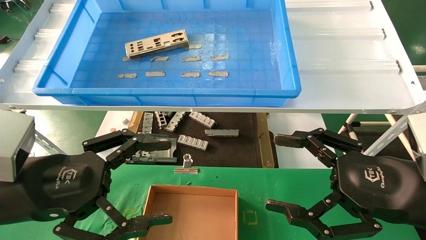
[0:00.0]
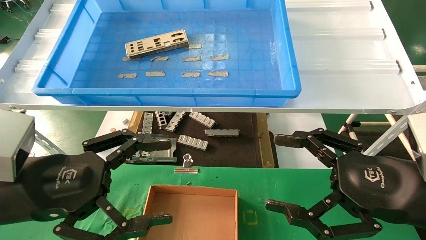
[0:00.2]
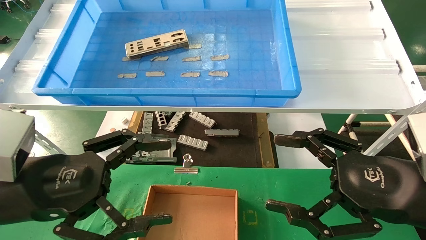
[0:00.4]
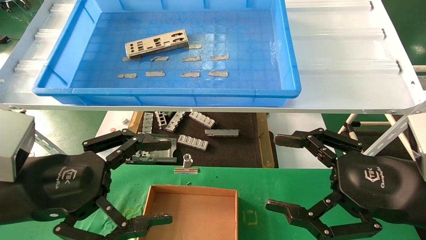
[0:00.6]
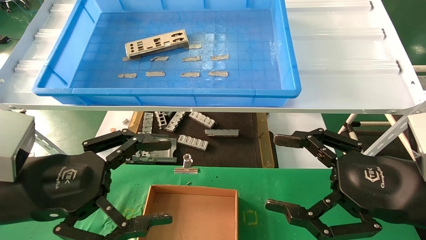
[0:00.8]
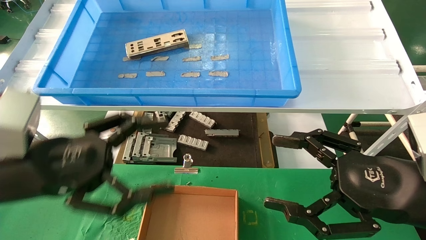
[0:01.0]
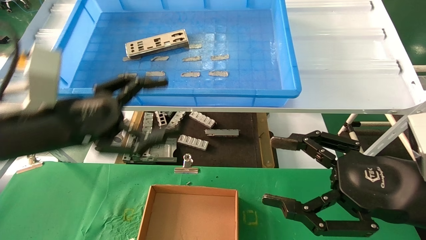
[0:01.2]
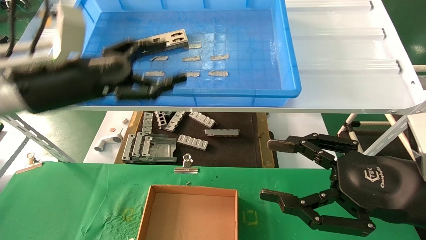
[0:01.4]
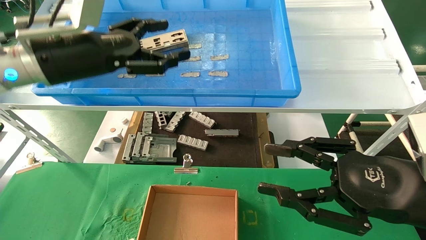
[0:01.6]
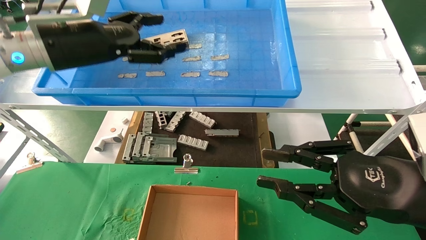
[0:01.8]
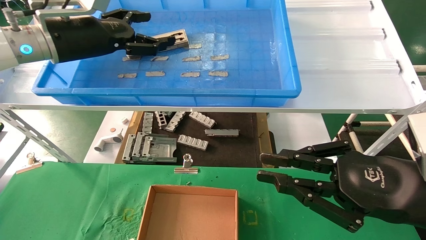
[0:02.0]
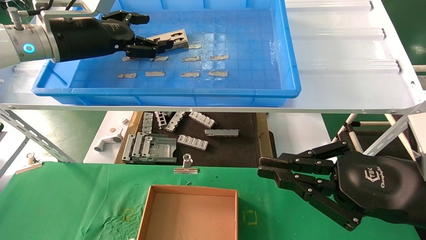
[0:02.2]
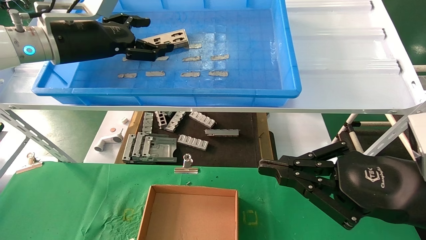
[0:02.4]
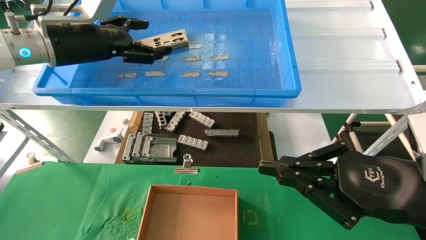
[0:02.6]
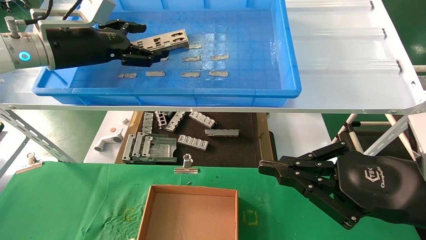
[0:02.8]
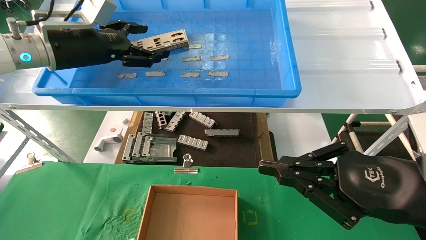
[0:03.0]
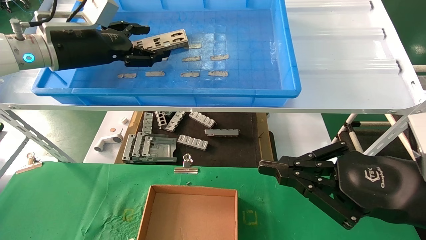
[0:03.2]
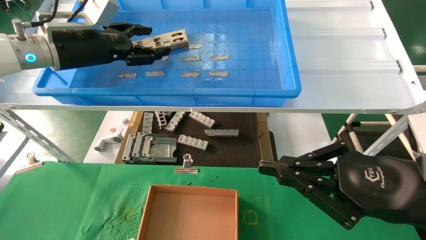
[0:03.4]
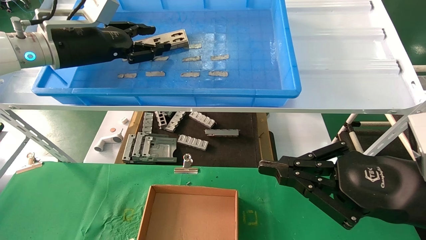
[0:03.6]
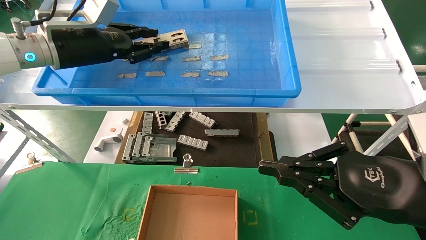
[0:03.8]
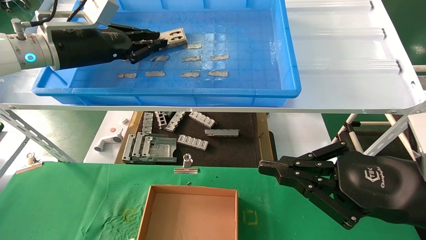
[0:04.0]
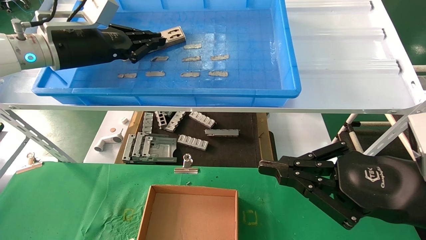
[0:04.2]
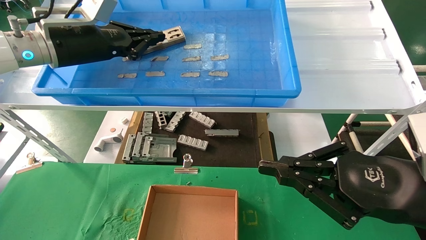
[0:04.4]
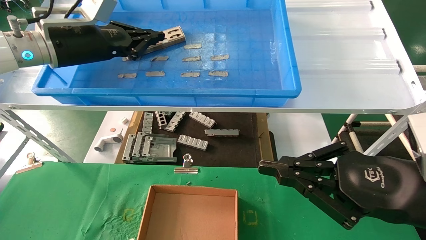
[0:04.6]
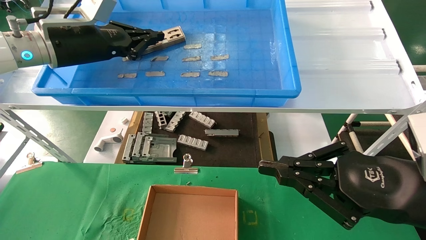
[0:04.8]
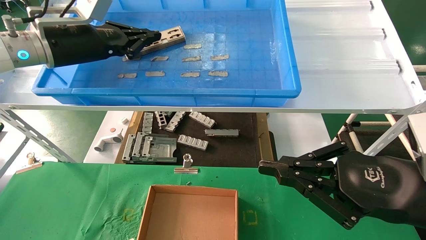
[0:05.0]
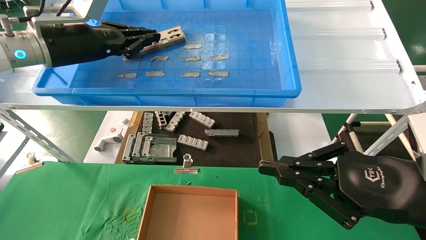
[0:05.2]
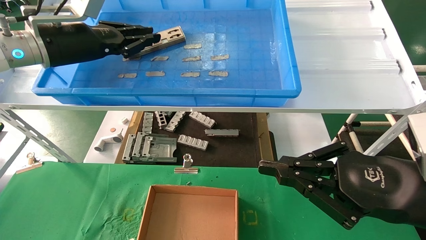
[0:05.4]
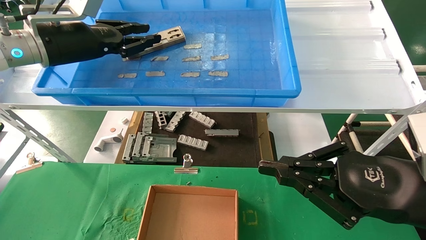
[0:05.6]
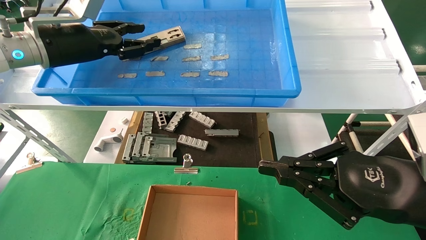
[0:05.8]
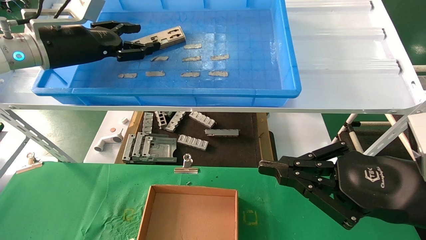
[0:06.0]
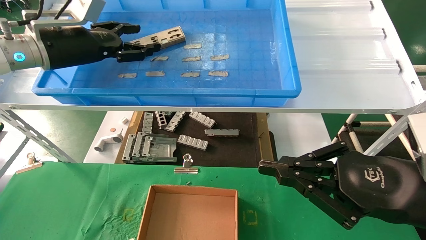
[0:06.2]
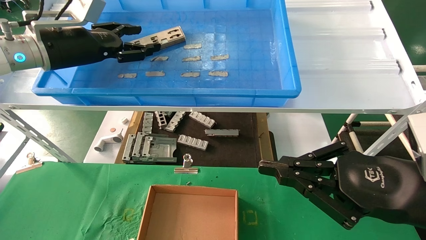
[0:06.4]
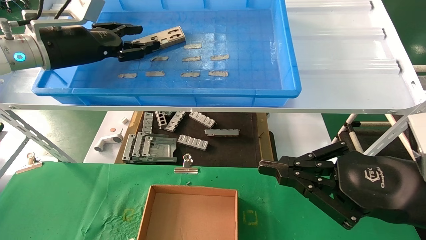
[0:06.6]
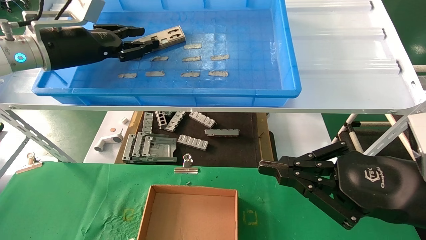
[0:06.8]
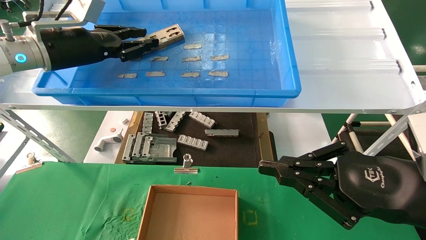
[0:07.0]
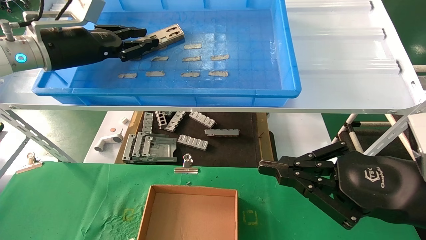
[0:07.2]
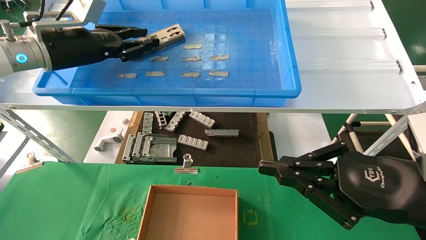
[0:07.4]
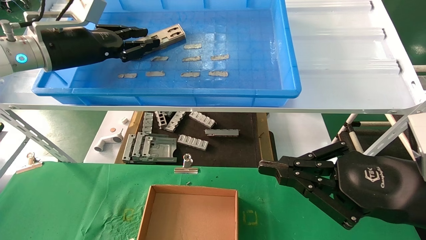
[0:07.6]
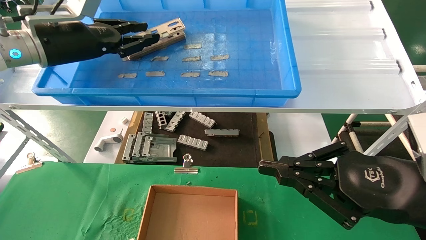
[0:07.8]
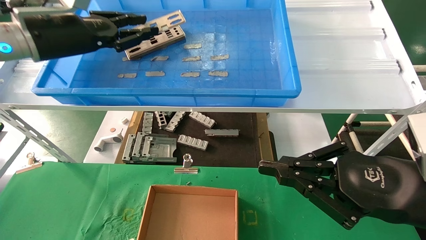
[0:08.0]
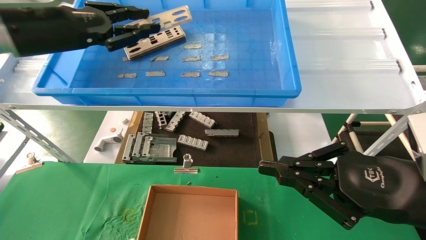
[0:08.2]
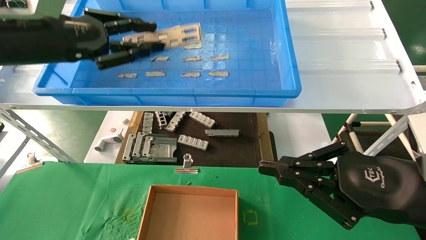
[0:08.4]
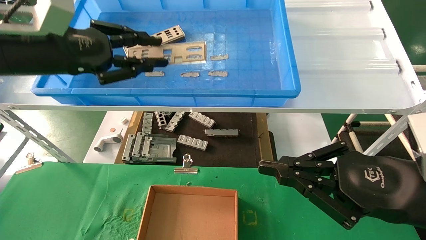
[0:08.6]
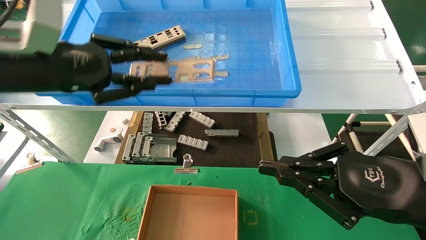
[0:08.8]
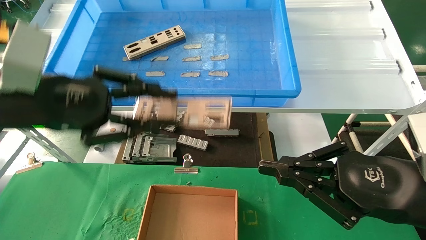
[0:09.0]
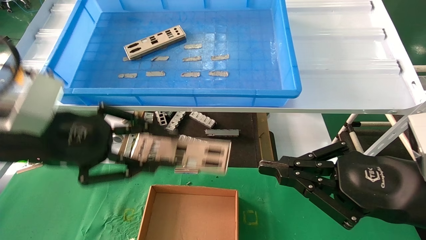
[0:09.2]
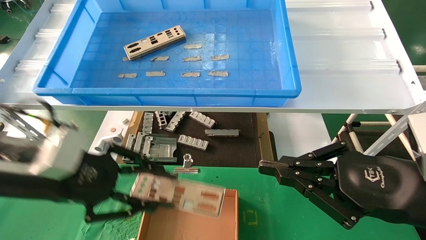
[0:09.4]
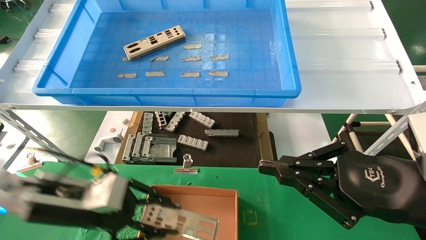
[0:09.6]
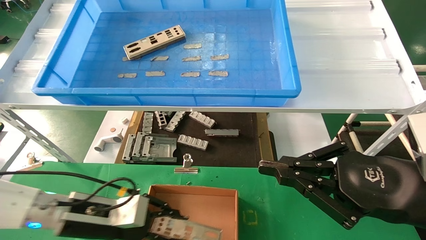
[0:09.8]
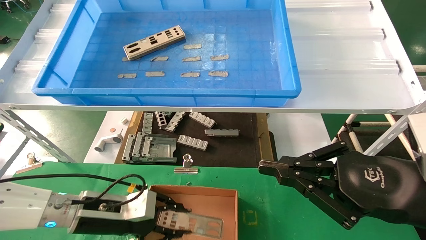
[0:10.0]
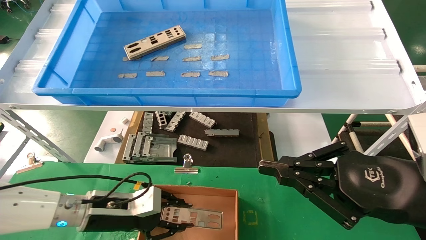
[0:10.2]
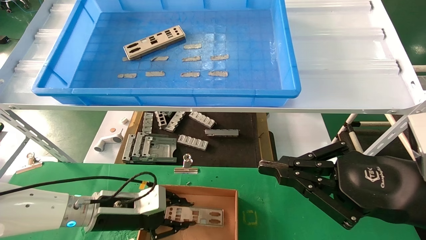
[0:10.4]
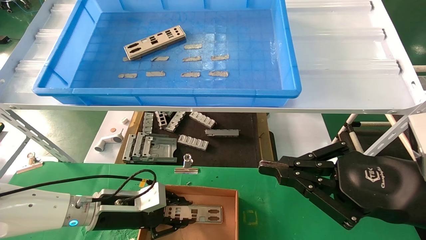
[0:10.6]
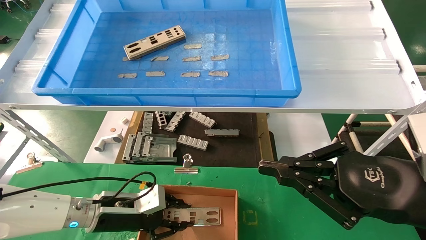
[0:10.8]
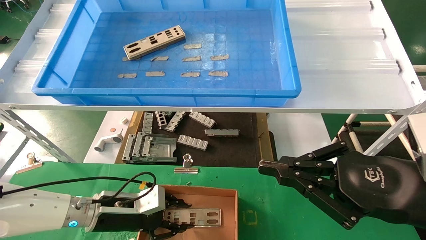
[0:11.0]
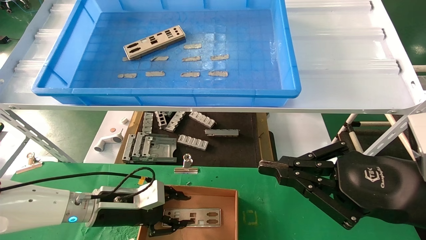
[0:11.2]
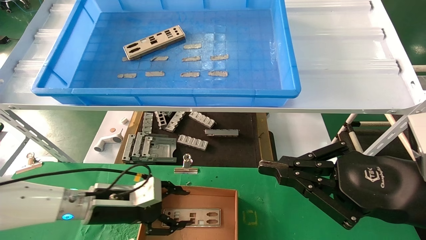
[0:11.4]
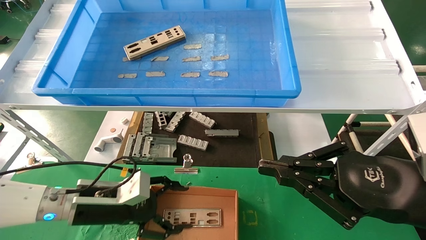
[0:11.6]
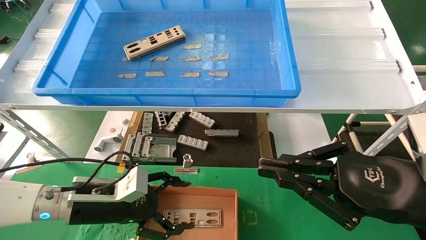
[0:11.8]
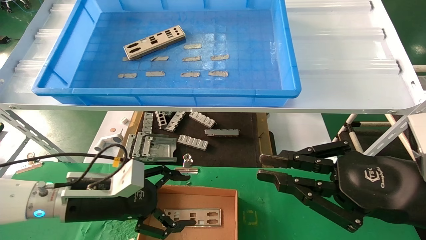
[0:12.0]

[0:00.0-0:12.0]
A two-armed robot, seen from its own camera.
Task of the whole recording: pick up the parts on the tray and put them in the cardboard box.
Step, 0:01.2 to 0:07.6: Pick up the IO bracket from the container box.
Step, 0:07.8 to 0:11.0: Place the IO bracket into the ingredient slot.
0:00.0 to 0:01.6: The right gripper closes its fingers. The left gripper heads forward and upward, covering some 20 cm.
0:01.6 to 0:03.0: The right gripper closes its fingers. Meanwhile the left gripper heads forward, covering about 5 cm.
0:03.0 to 0:04.4: The left gripper closes.
0:04.4 to 0:06.0: The left gripper opens.
0:06.0 to 0:07.6: Neither gripper changes place.
0:07.6 to 0:09.0: The left gripper shifts about 15 cm backward.
0:09.0 to 0:10.4: The left gripper moves downward, approximately 25 cm.
0:10.4 to 0:12.0: The left gripper goes about 5 cm upward, and opens up.

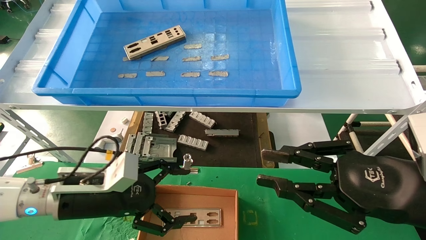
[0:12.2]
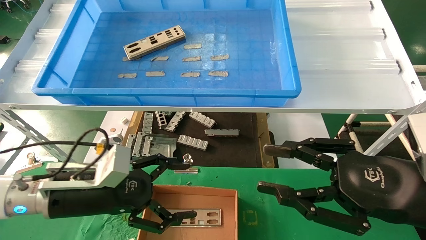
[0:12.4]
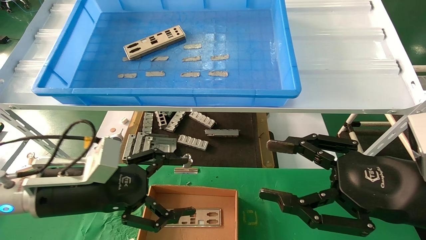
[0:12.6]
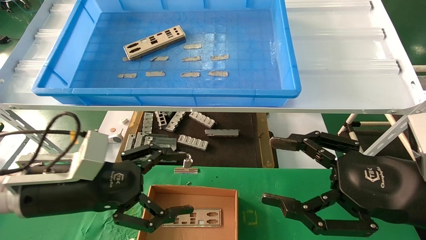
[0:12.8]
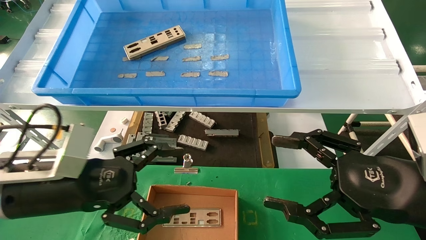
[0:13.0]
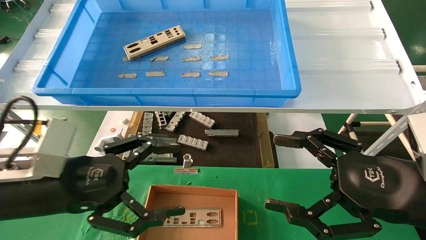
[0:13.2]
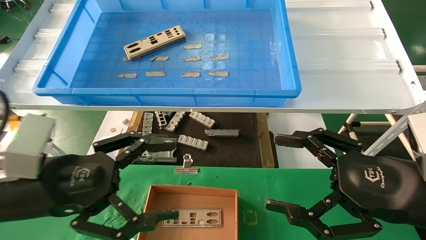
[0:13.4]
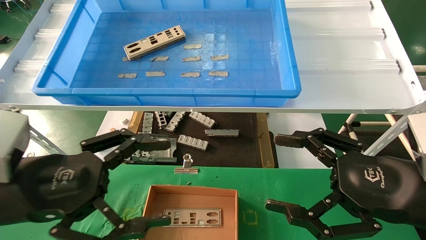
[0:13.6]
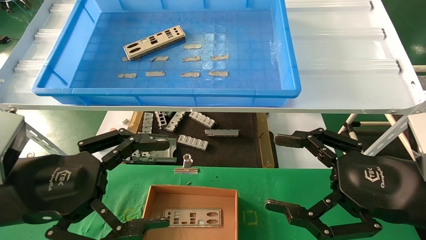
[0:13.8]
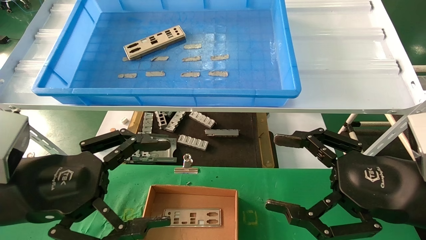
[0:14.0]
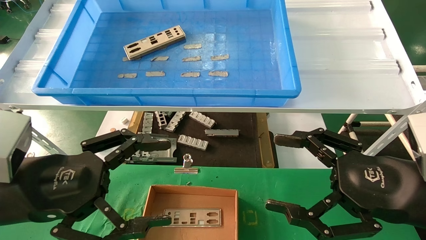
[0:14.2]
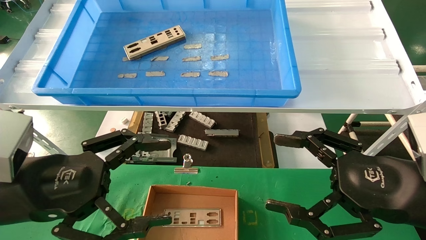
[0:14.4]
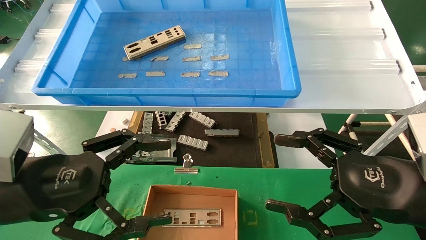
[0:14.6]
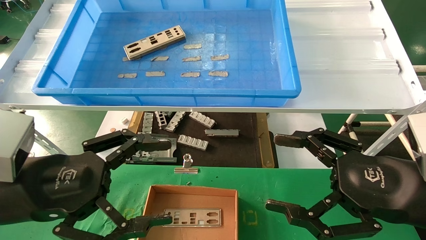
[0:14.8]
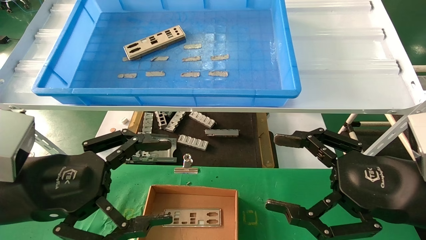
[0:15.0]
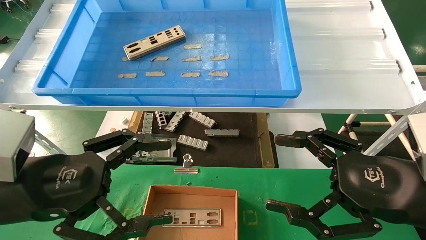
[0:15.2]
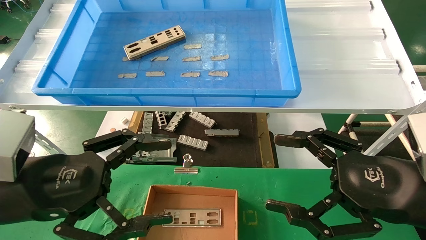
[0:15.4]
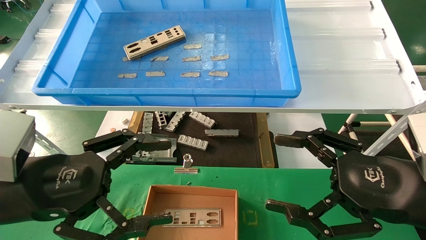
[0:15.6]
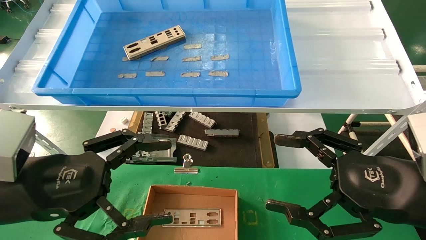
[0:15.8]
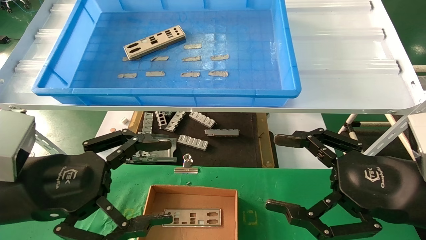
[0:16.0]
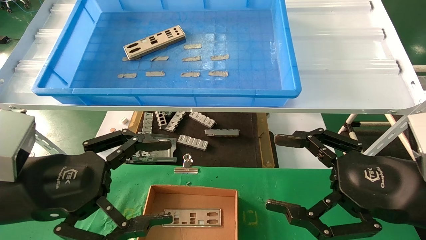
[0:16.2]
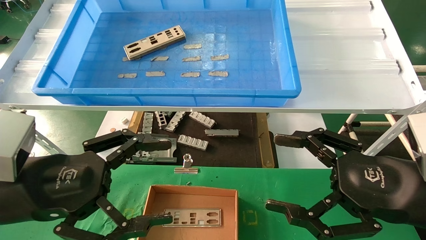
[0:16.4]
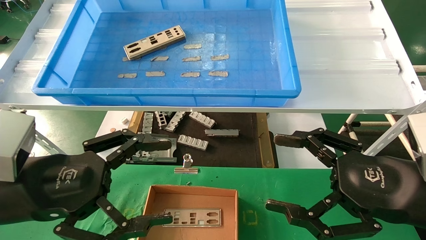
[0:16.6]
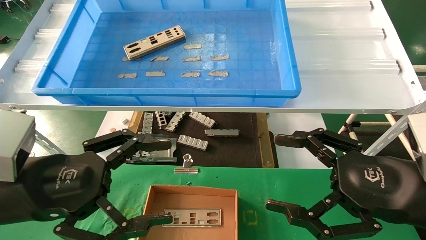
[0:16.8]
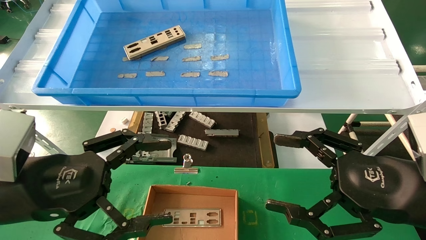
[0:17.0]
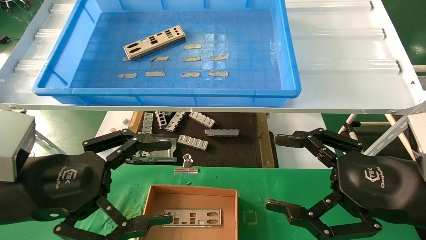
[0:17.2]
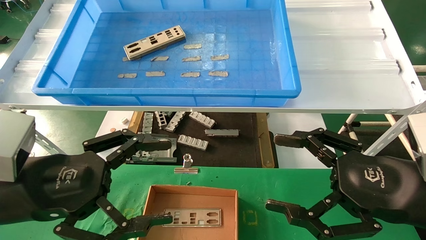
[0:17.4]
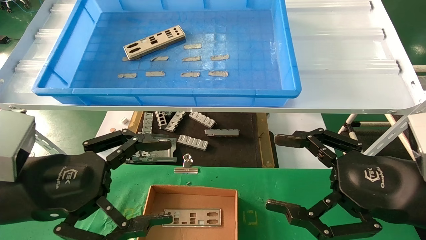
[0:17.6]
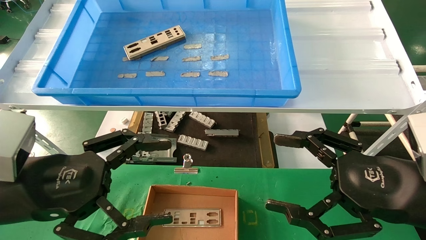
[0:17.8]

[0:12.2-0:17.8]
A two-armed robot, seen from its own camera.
Task of the whole recording: pick up the parts on the tray and put them in the cardboard box.
0:12.2 to 0:13.6: The right gripper opens its fingers, while the left gripper goes roughly 15 cm backward and upward.
0:13.6 to 0:17.8: The two grippers keep their place.
